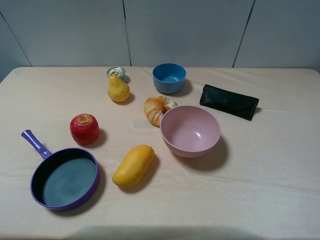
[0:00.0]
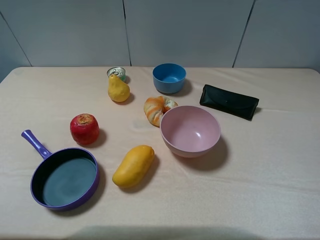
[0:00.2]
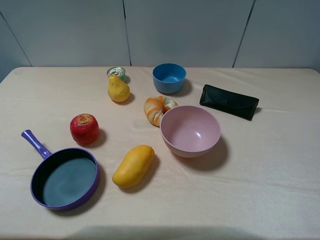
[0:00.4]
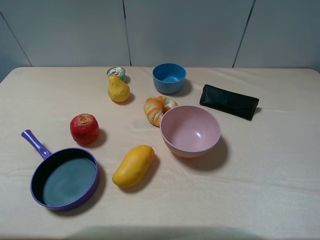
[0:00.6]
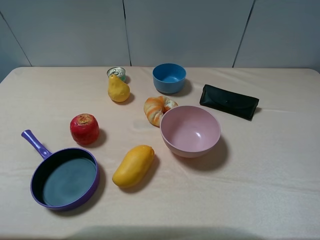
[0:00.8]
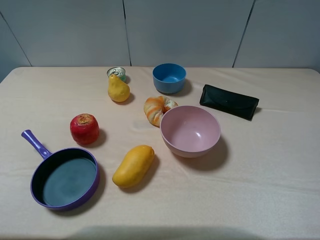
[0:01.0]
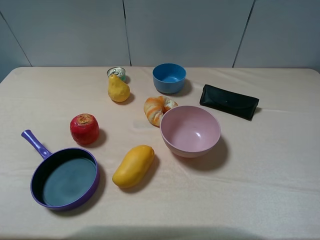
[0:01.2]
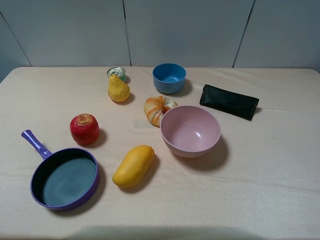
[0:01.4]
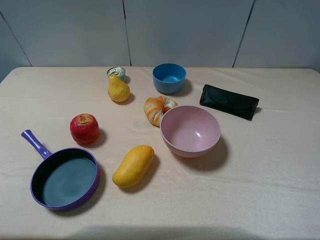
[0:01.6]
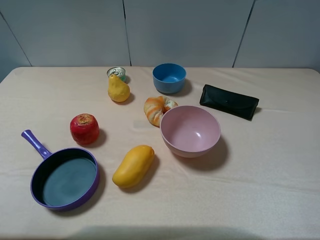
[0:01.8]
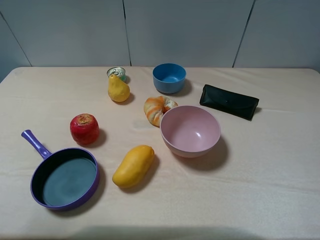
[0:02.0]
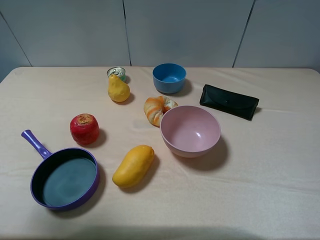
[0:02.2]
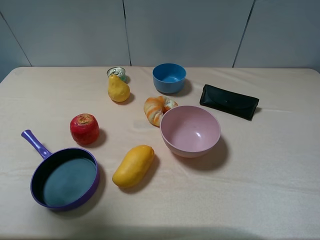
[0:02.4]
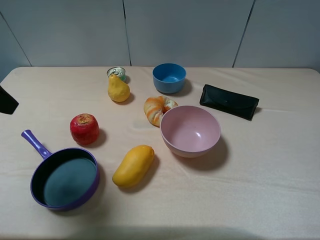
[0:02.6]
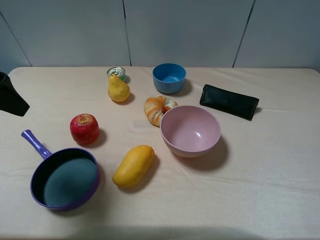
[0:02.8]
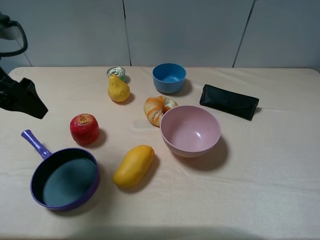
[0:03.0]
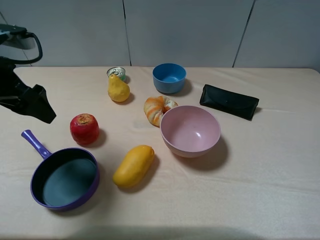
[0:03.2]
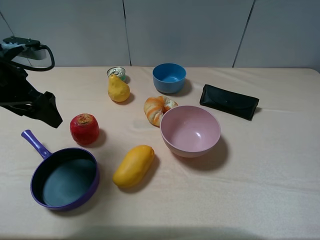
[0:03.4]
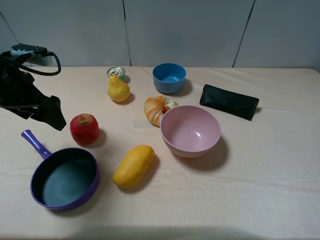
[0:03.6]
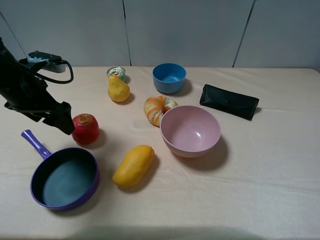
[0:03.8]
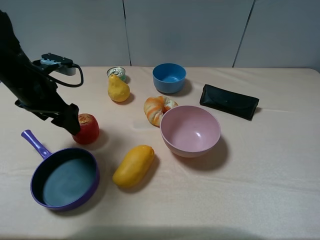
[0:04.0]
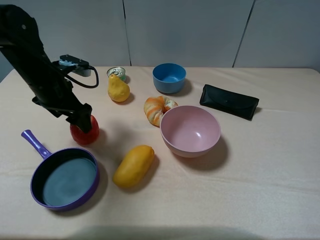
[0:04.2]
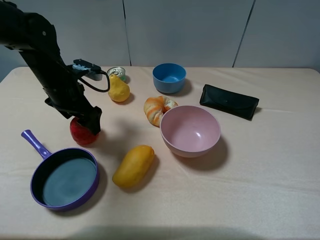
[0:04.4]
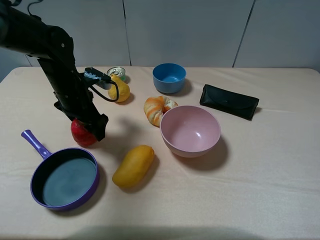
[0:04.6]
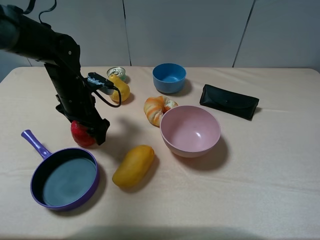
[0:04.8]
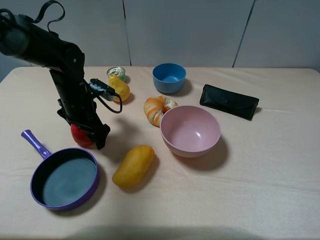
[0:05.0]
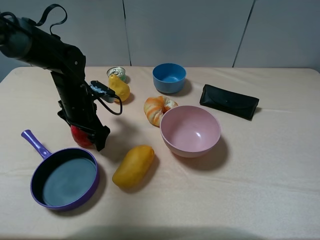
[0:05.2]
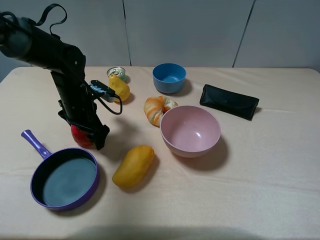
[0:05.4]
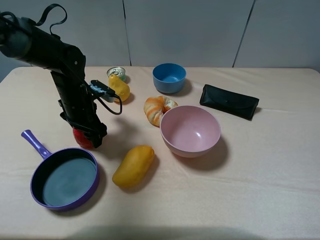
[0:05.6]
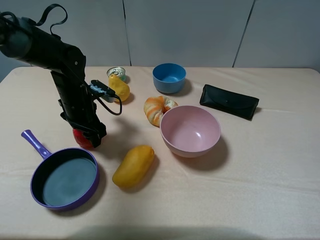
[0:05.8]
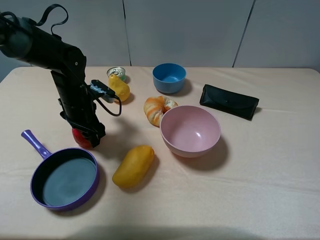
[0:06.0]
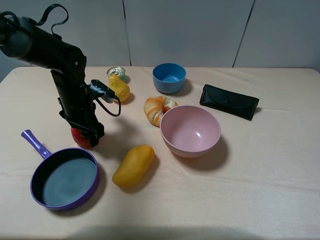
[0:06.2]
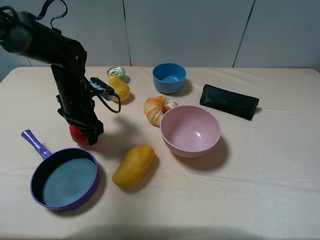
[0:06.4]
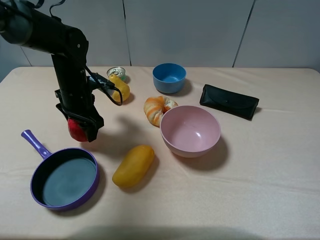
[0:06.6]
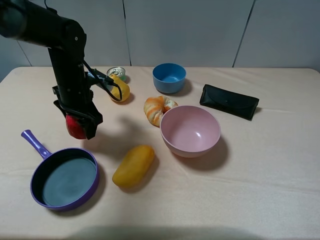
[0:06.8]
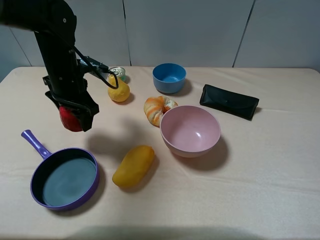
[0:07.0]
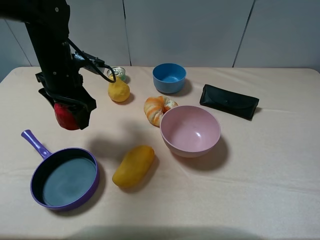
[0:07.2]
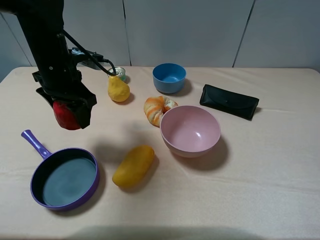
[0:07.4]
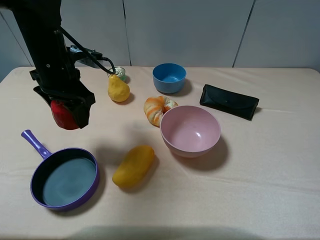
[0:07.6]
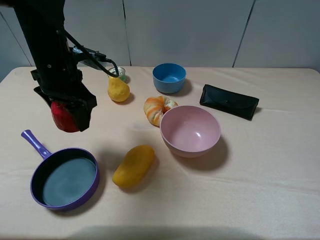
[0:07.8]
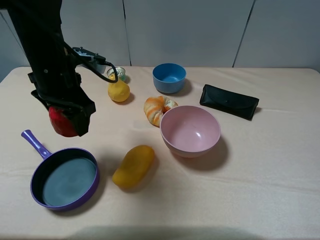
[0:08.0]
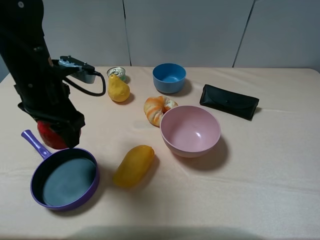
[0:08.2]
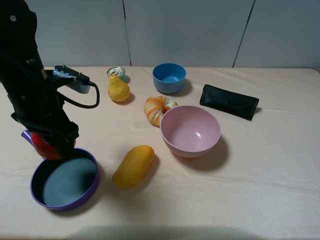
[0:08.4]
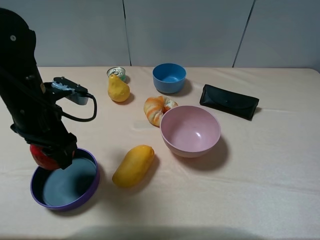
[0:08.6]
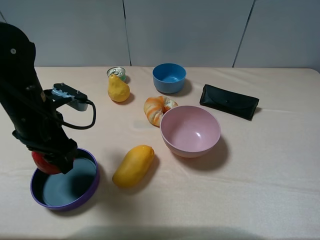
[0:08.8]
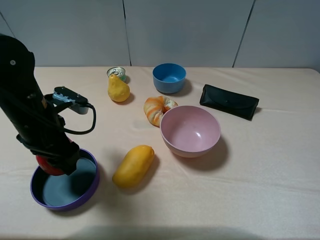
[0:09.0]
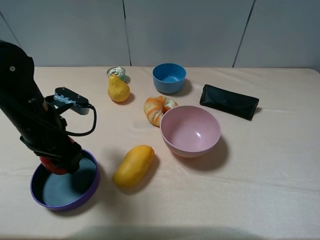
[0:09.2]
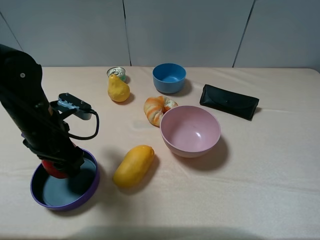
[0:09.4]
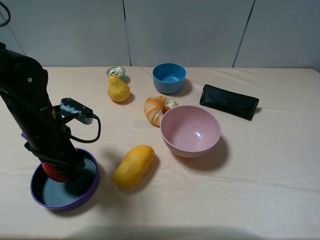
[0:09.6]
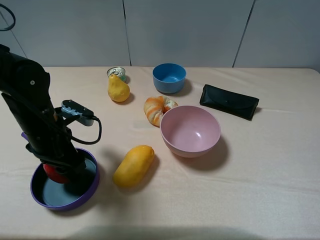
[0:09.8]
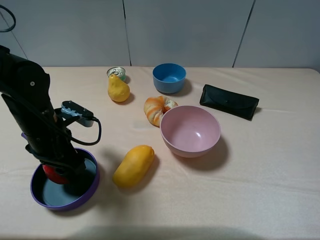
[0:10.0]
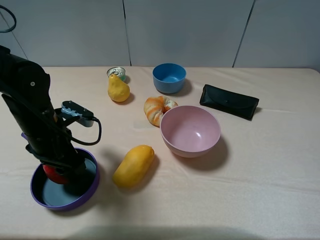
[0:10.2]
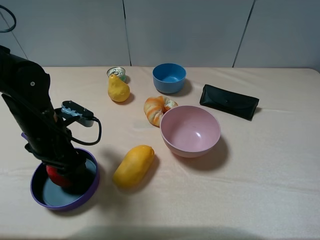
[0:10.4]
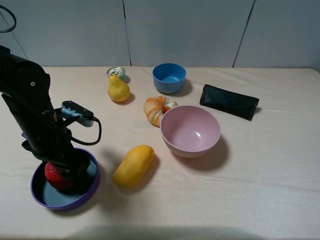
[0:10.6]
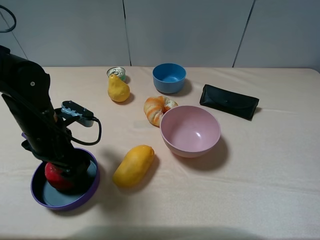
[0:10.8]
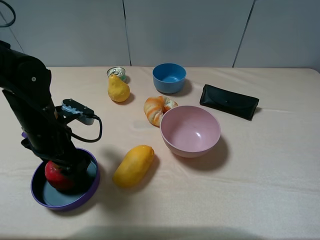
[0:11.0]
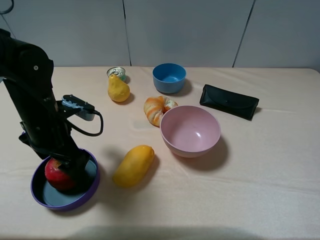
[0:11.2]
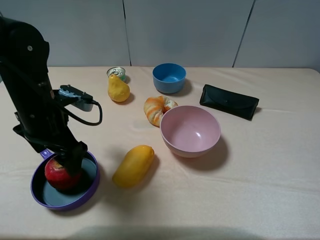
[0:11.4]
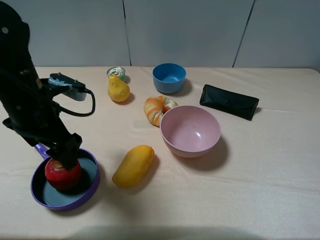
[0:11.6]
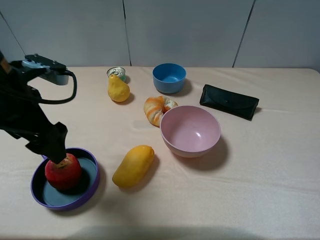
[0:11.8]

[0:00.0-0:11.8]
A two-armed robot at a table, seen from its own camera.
Task of the whole recording: pick up an item with a gripper and place it in a random container on the table.
Step, 0:00.0 to 0:05.6: Grasp the apple with the left gripper.
Step, 0:05.8 to 0:10.6: Place the apple into the blue bowl with the left gripper.
0:01.4 to 0:03.0: The left gripper moves forward, about 20 cm.
0:03.0 to 0:04.4: The left gripper travels downward, forward and to the right by some 15 cm.
0:04.4 to 0:06.0: The left gripper changes place by approximately 5 cm, and closes up.
0:06.0 to 0:07.4: The left gripper goes about 10 cm upward.
0:07.4 to 0:08.8: The left gripper is displaced backward by roughly 10 cm.
0:08.8 to 0:10.4: The left gripper opens up.
0:10.4 to 0:11.8: The left gripper is displaced upward by roughly 10 cm, and opens.

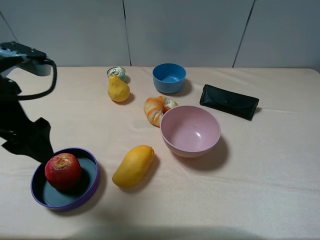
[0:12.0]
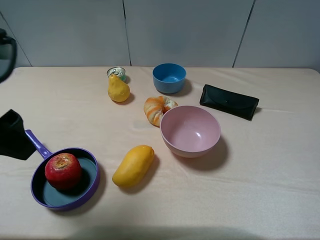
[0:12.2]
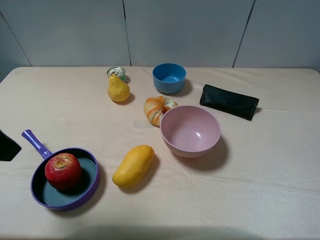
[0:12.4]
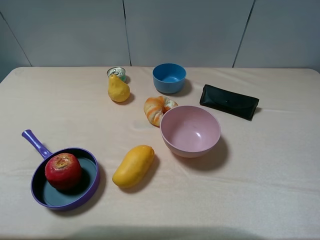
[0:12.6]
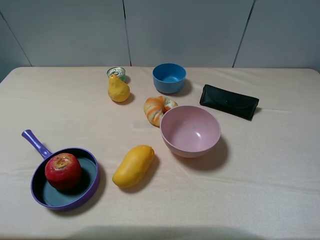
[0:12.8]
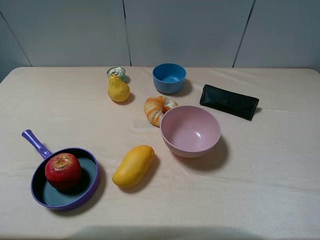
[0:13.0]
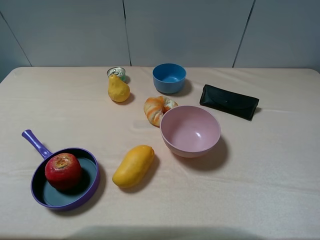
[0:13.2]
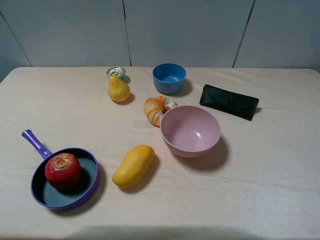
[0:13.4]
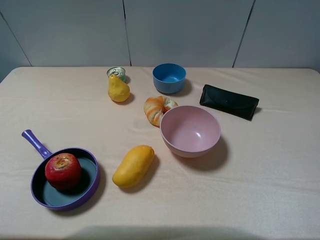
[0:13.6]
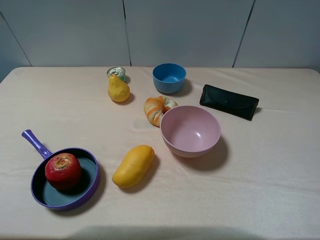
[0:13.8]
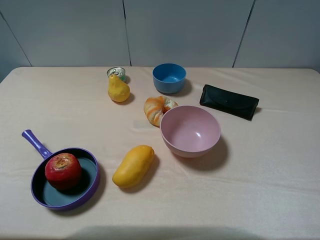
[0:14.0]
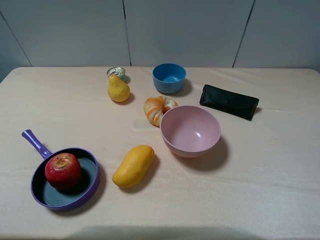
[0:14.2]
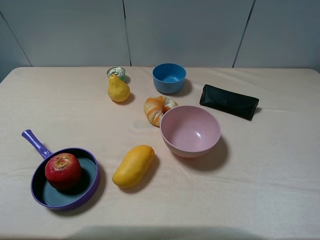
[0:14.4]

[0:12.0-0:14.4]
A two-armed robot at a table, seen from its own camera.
Task of the whole recording: pick up an item with a gripper and place it in a random container on the table.
0:12.0 to 0:13.2: The left gripper heads backward and to the left, covering roughly 20 cm.

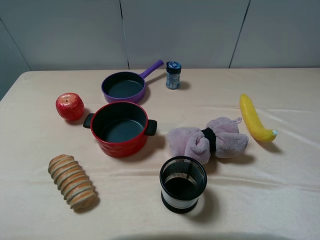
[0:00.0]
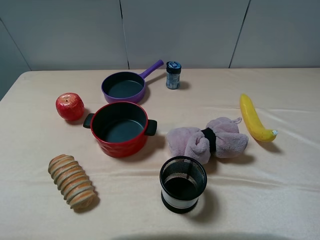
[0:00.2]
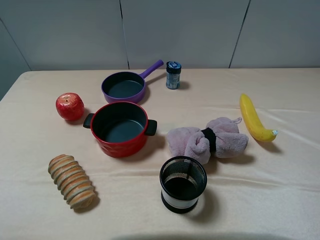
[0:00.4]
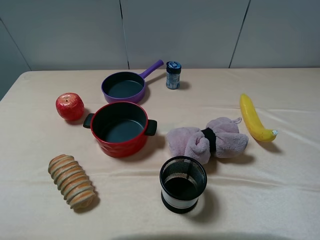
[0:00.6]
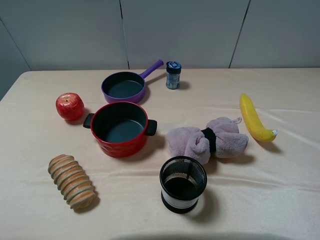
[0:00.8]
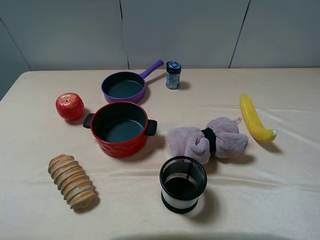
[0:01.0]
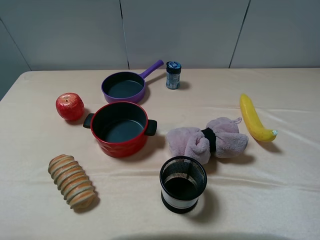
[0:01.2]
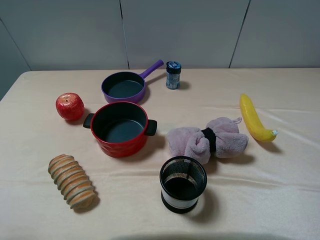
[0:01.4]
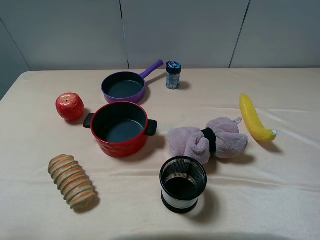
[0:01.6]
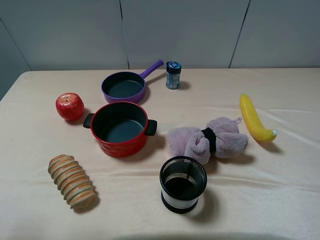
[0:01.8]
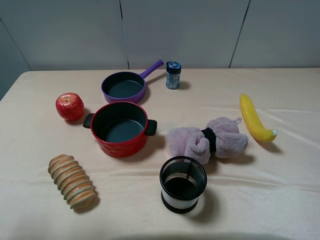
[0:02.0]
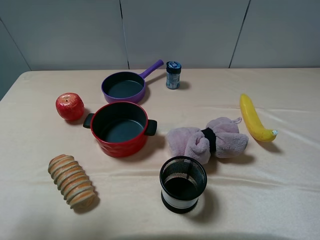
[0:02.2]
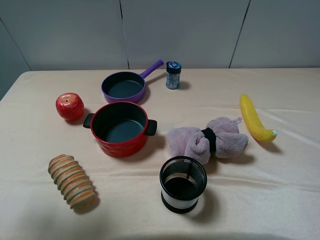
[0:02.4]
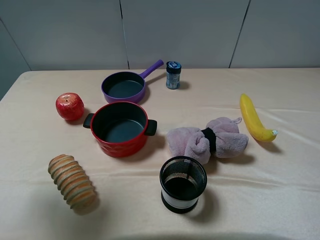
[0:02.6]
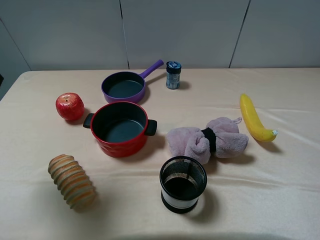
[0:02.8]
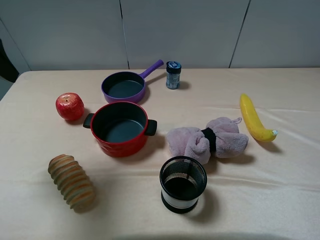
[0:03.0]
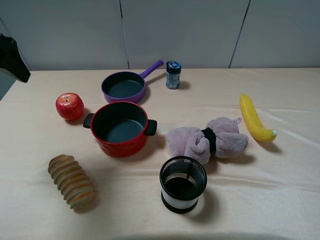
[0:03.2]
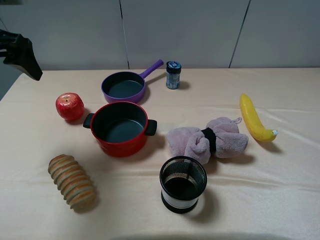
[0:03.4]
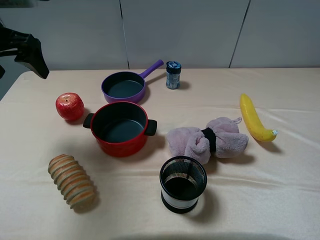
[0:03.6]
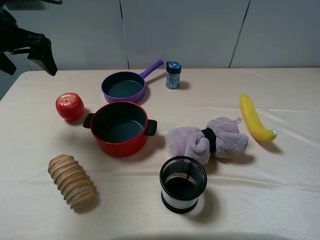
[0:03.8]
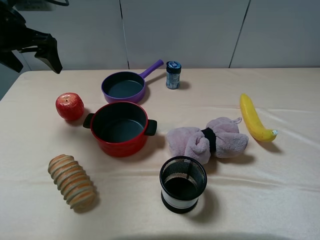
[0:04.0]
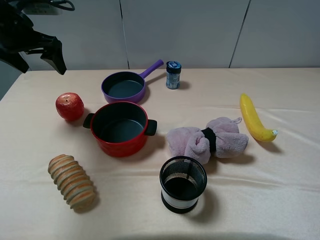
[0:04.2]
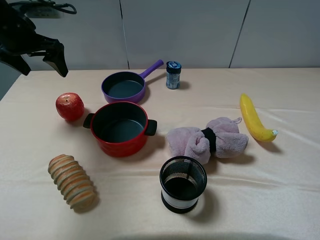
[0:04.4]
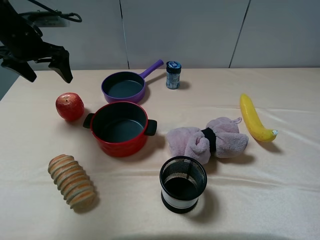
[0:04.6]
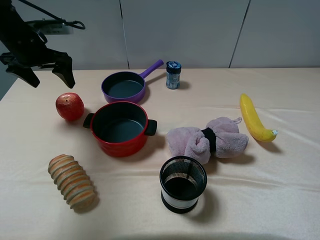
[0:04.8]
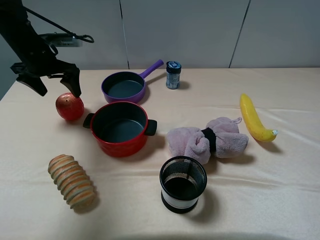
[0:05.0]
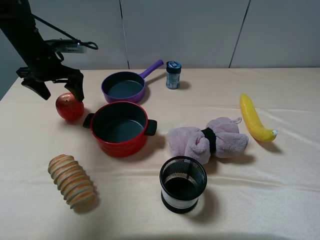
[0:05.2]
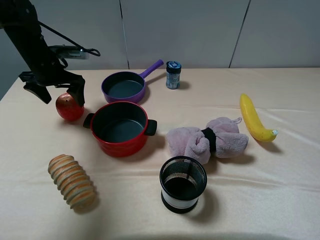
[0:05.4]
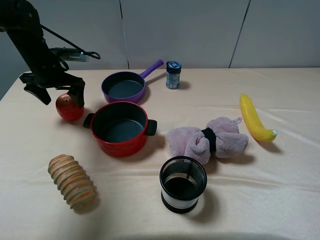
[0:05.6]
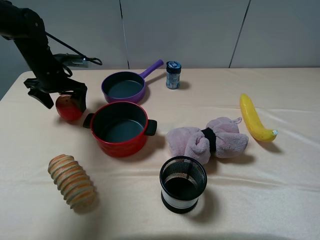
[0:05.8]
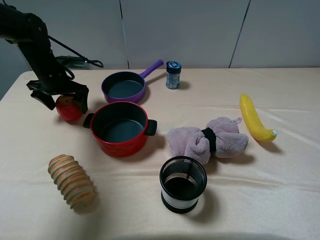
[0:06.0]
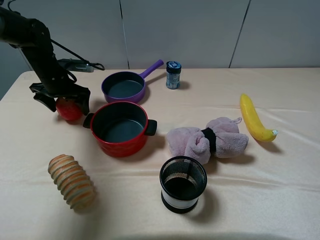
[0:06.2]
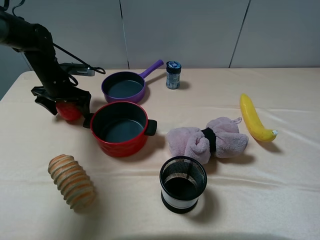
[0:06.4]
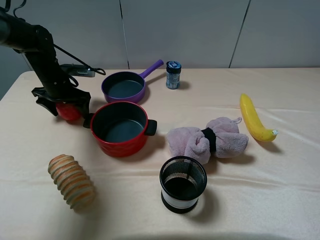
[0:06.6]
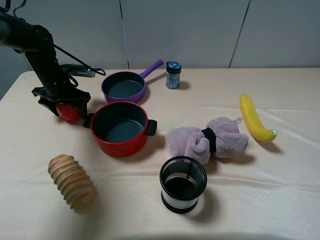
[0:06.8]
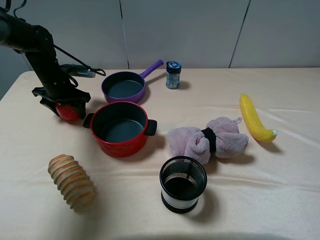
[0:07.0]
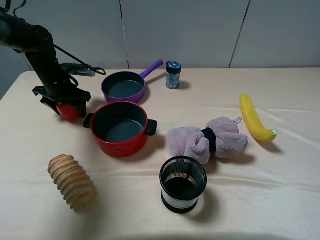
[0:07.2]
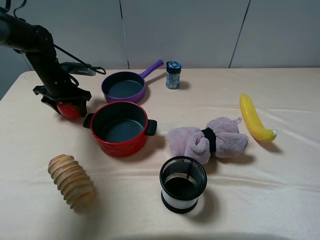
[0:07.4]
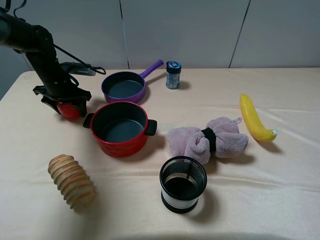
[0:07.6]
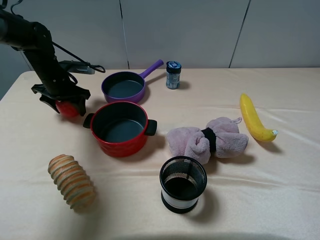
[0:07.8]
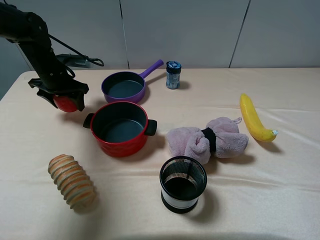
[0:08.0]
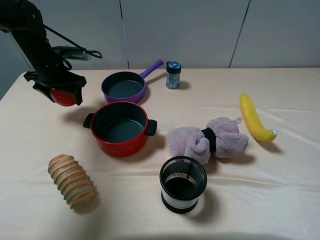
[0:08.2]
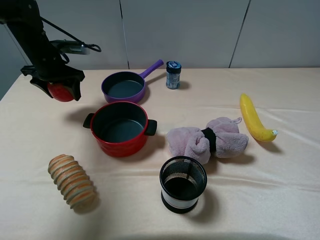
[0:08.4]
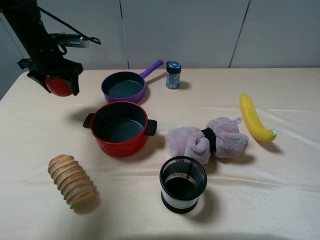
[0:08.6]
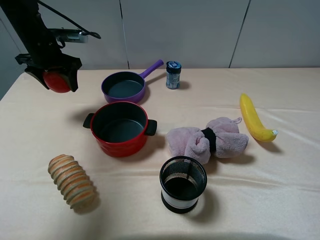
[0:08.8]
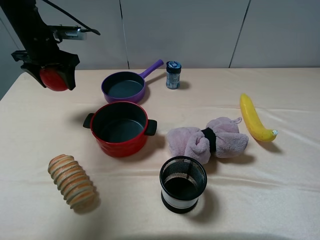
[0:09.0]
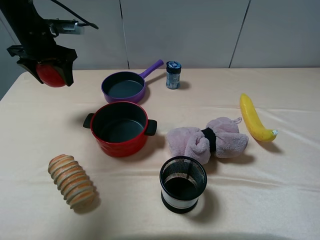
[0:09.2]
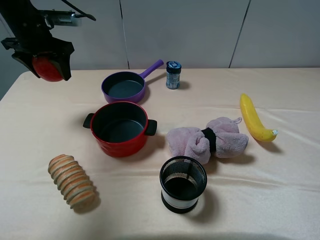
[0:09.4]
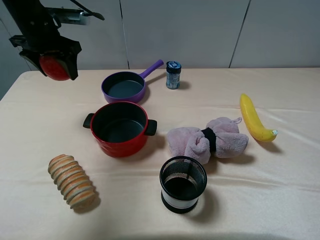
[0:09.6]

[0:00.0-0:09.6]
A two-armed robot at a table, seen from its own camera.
Task of the whole recording: pick up an item with a gripper and place it in a random container on the table.
Step, 0:00.0 to 0:07.2: Grasp the apple with the left gripper.
0:01.6 to 0:03.2: The left gripper shifts about 20 cm forward.
0:03.2 to 0:04.8: The left gripper moves forward and downward, roughly 15 cm.
0:04.8 to 0:06.4: The left gripper goes approximately 10 cm downward.
0:06.4 to 0:08.0: The left gripper closes.
0:08.0 to 0:09.6: The left gripper travels upward by roughly 10 cm.
